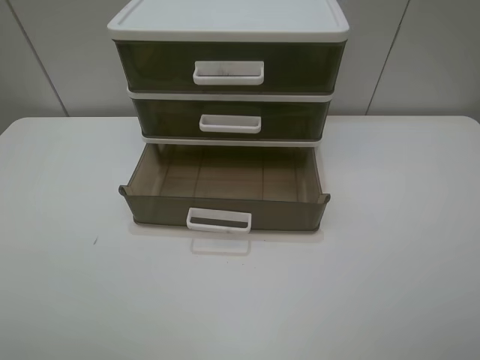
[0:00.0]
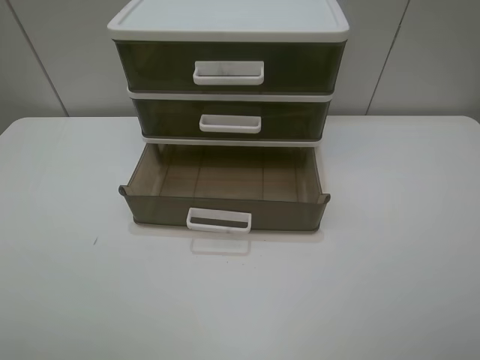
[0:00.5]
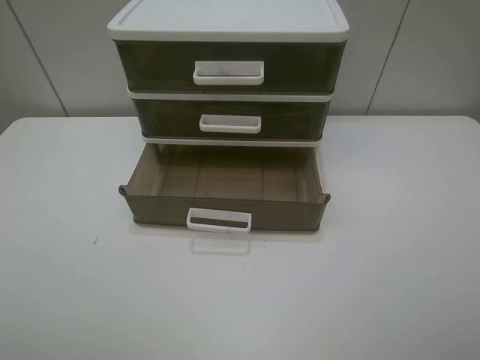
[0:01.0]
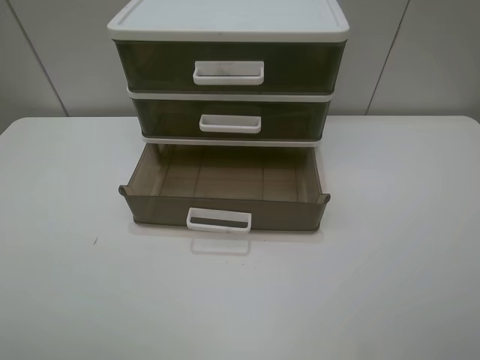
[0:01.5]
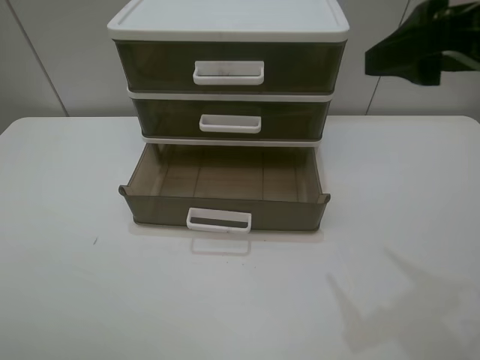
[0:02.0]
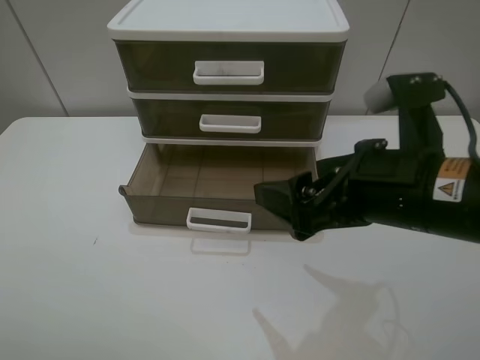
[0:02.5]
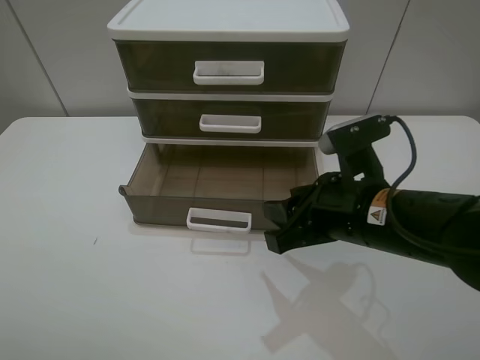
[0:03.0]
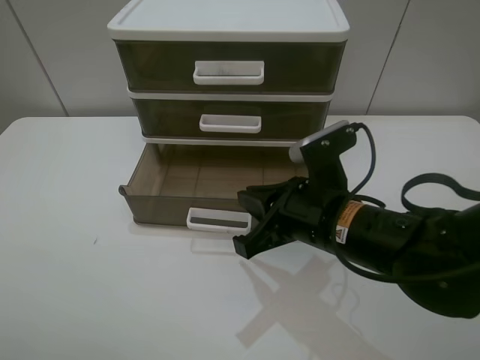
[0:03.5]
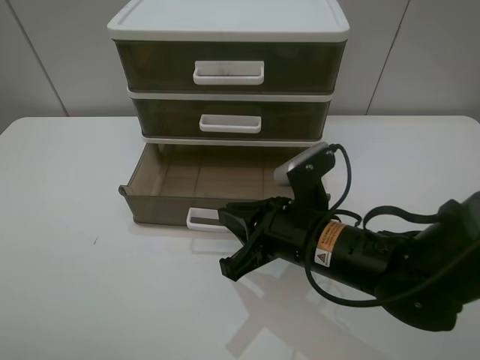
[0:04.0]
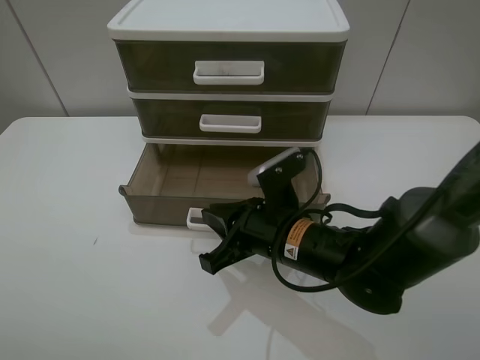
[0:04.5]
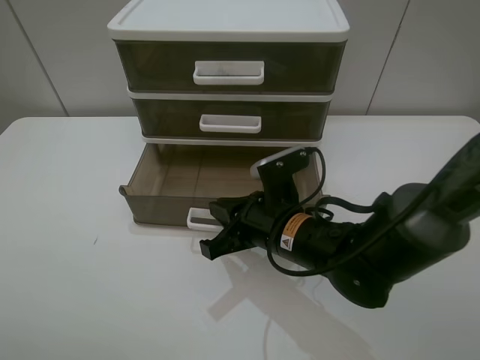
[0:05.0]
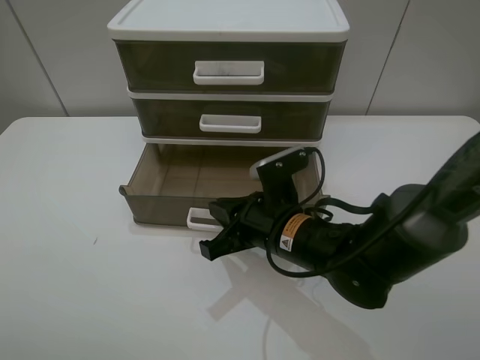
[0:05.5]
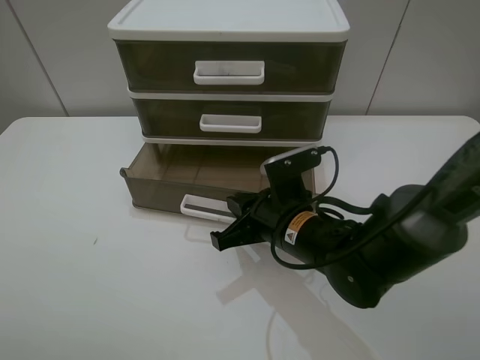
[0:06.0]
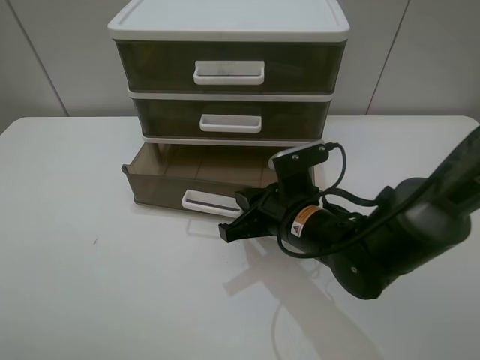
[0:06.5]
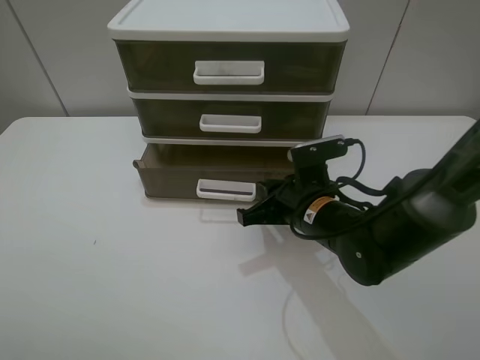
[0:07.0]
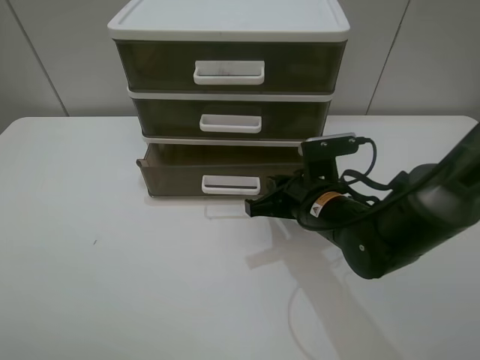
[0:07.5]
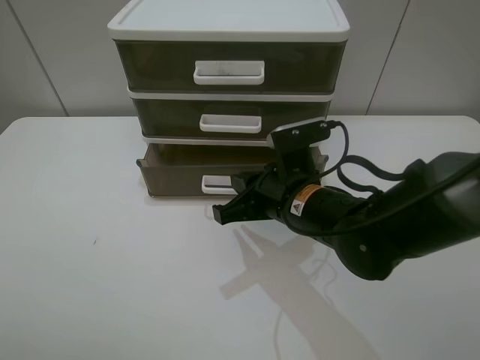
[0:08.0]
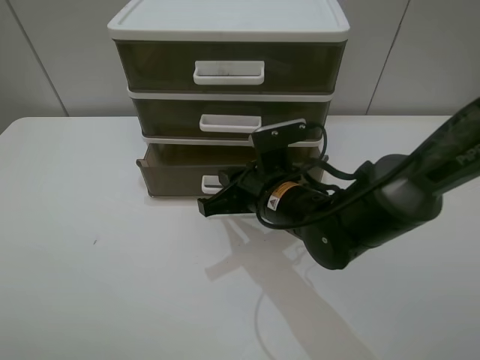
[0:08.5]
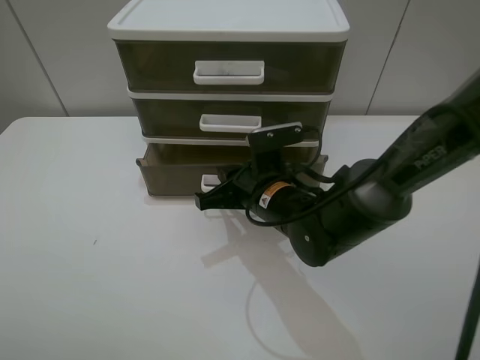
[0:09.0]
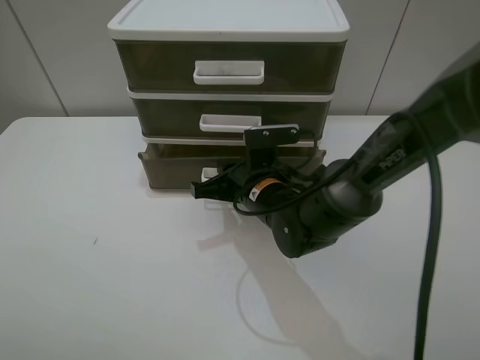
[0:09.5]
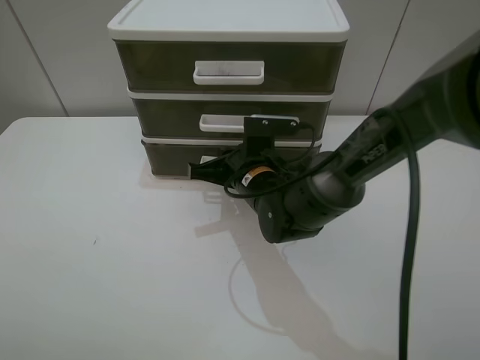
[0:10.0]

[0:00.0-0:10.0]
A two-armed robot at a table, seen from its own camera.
Task of the whole recording: close the bottom drawer.
Step, 0:00.0 to 0:05.0: Use the right gripper to contact the bottom layer of the storage cabinet.
0:00.0 to 0:02.0: The right gripper is displaced forward and to the left by some 20 cm.
0:02.0 to 0:04.0: The right gripper moves downward and to the left, some 25 cm, and closes up.
0:04.0 to 0:06.0: The grippers make only small movements.
0:06.0 to 0:08.0: There are only small adjustments of the grippers.
0:08.0 to 0:10.0: The right gripper is displaced forward by approximately 5 cm.

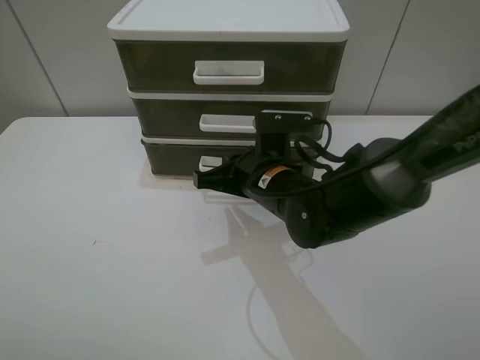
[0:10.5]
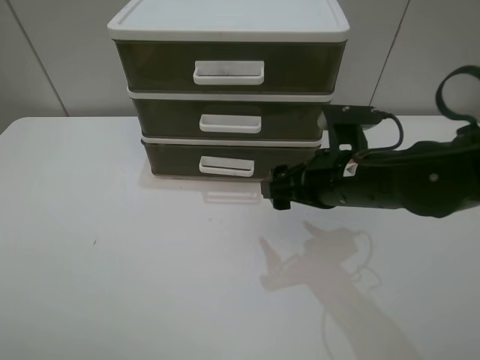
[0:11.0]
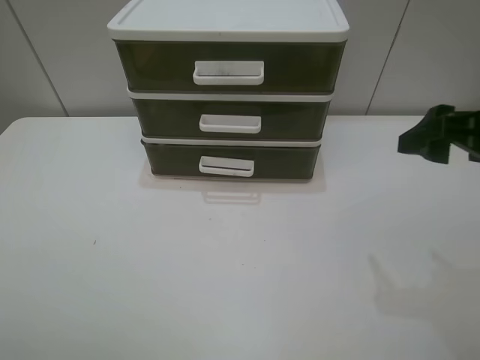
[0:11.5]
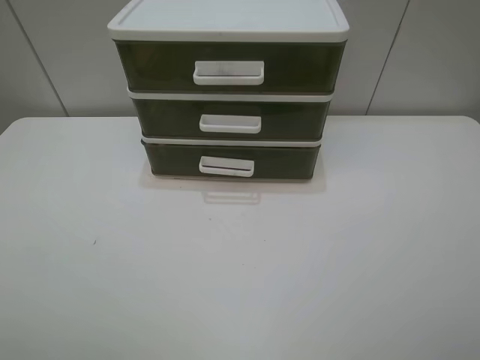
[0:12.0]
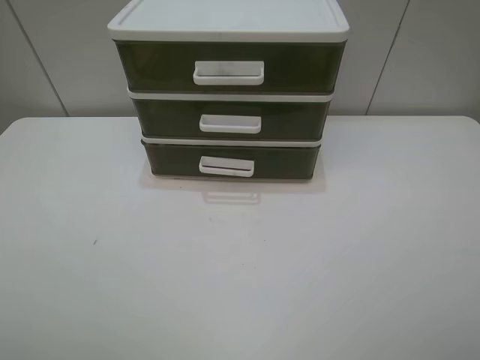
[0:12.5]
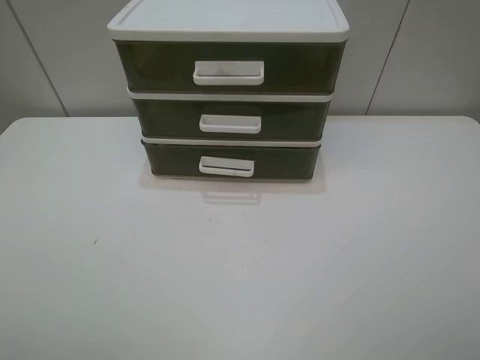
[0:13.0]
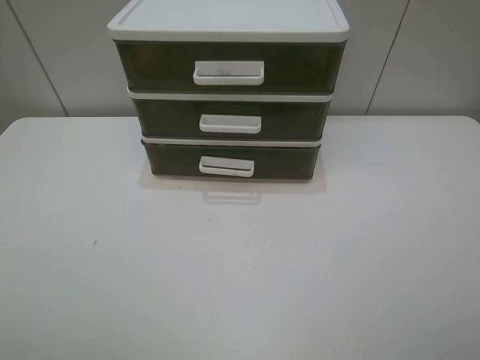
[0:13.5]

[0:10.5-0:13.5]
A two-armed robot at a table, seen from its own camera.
Task of the whole recording: close the bottom drawer.
0:10.5 to 0:12.0: The right gripper shifts about 40 cm to the right, backward and upward, and opens its fingers.
